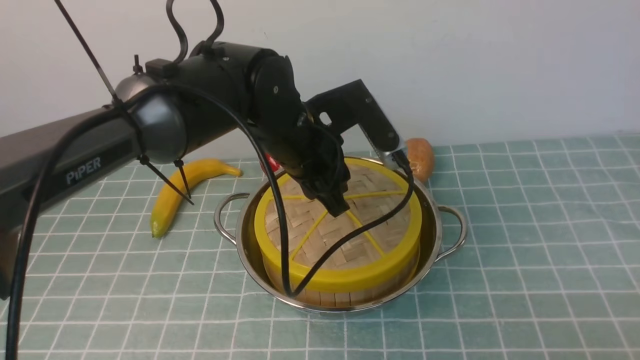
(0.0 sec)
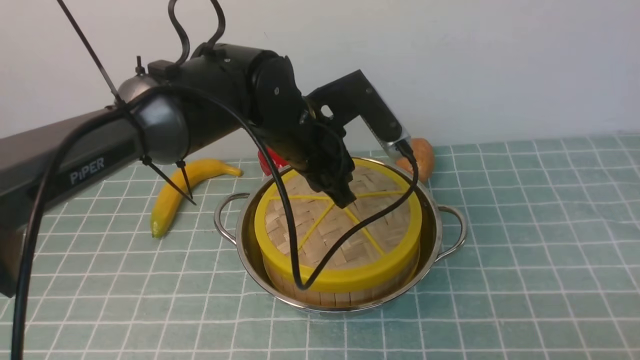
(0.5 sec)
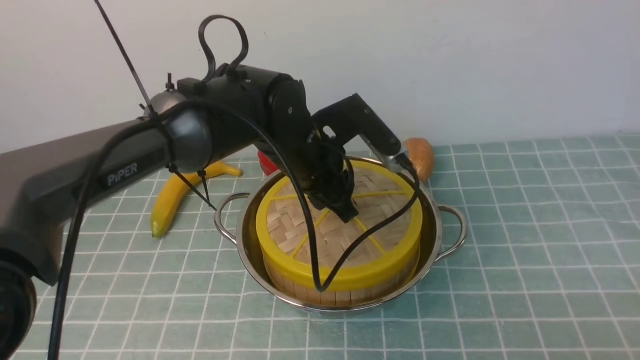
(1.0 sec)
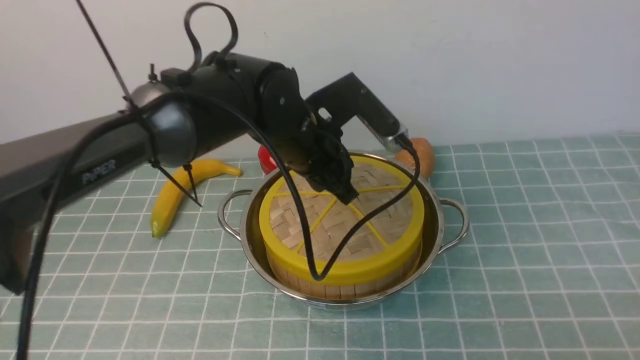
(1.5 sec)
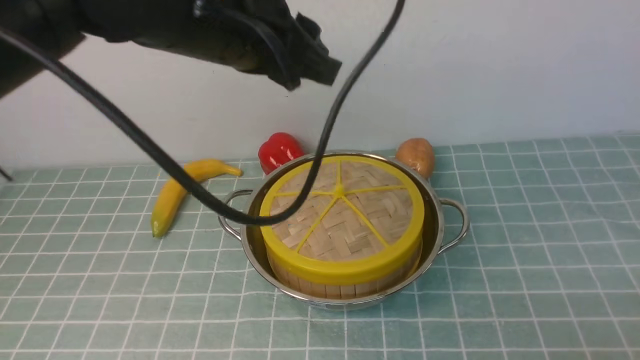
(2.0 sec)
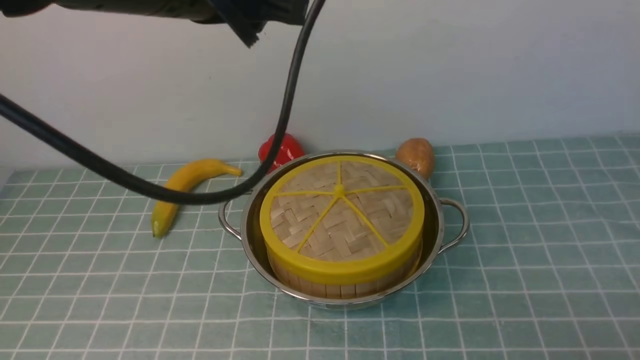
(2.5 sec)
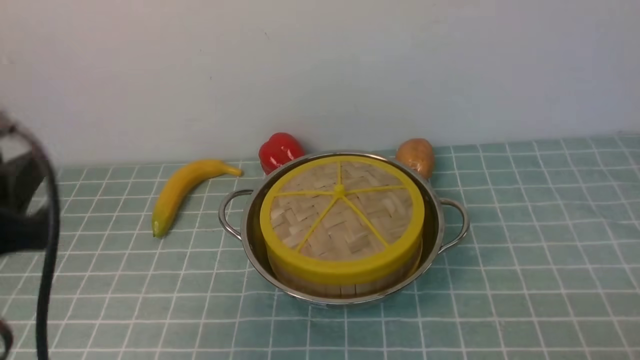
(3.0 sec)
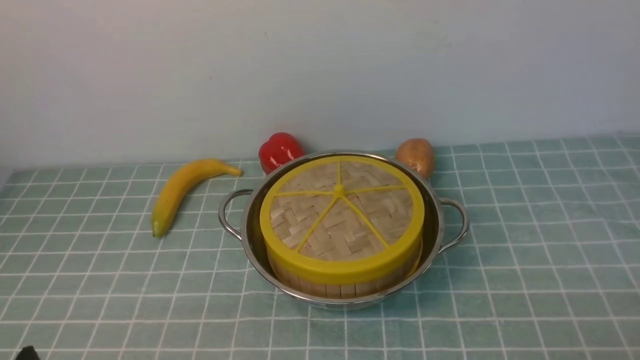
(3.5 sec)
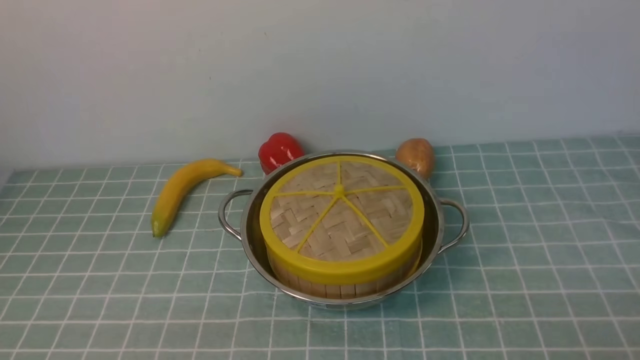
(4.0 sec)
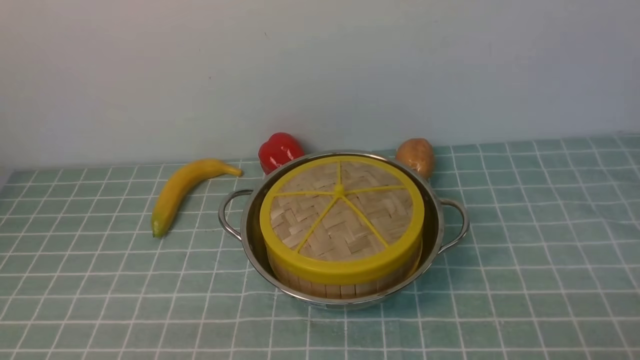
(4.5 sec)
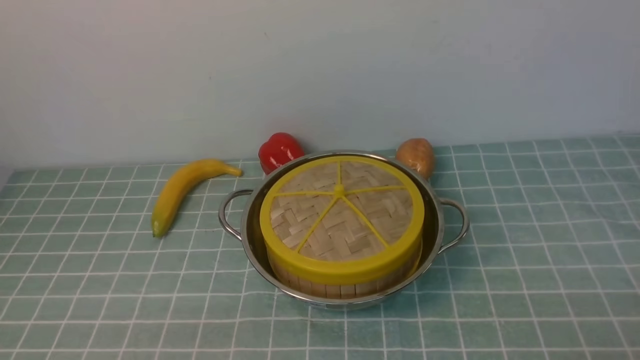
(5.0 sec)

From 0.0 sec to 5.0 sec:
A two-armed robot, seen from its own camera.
Task of the whole recording: place the steamer in the pot on the blue tablecloth, and put the lid on the steamer.
From 0.0 sec to 2.5 sec: The left gripper goes some 20 cm upward, backward and to the left.
From 2.5 sec to 5.0 sec: The left gripper heads downward, backward and to the left, covering roughly 35 cm.
